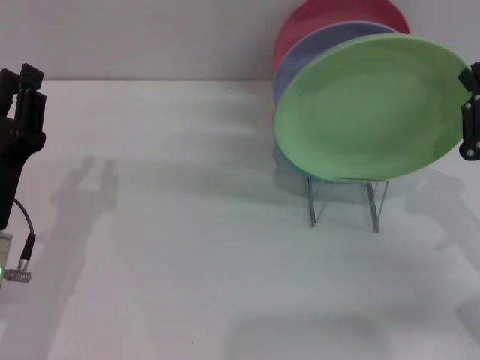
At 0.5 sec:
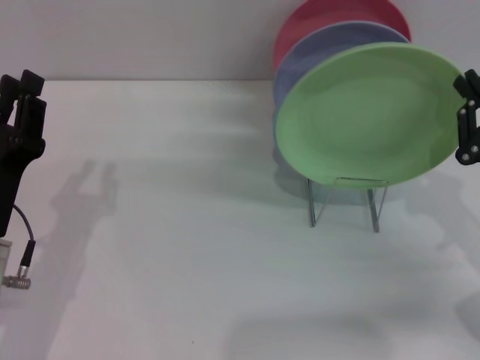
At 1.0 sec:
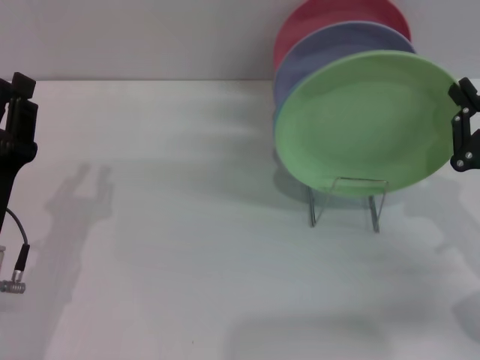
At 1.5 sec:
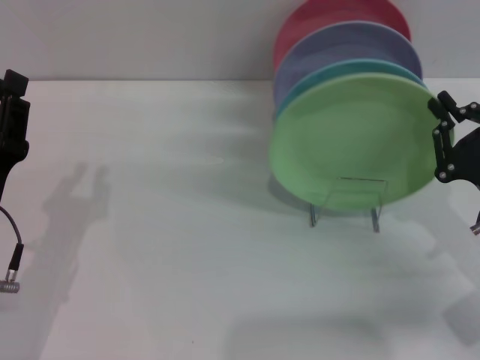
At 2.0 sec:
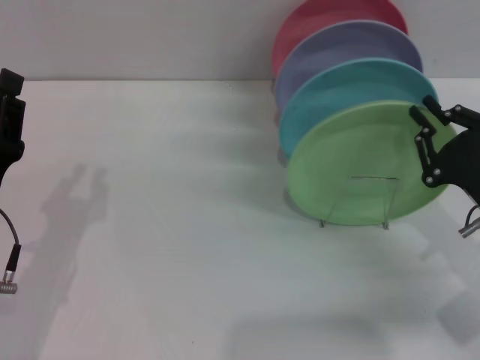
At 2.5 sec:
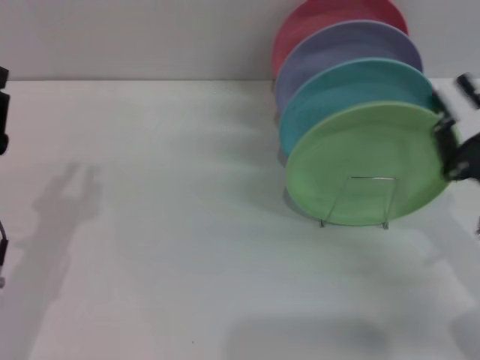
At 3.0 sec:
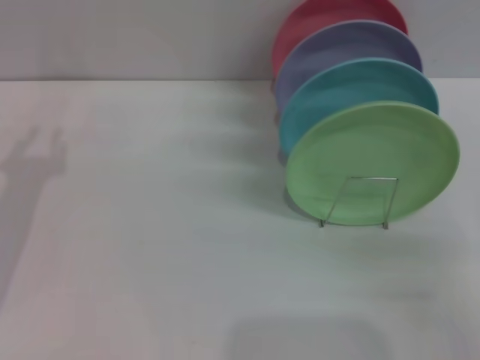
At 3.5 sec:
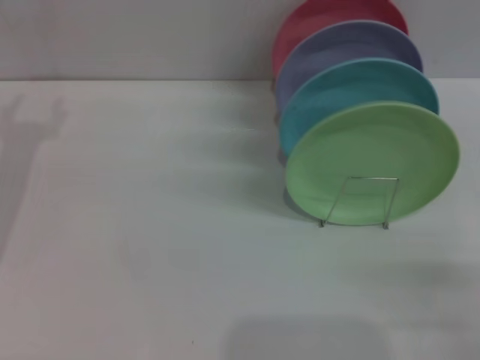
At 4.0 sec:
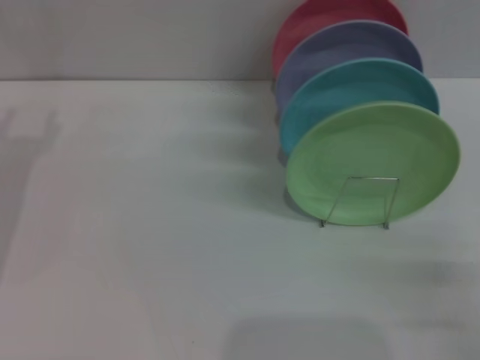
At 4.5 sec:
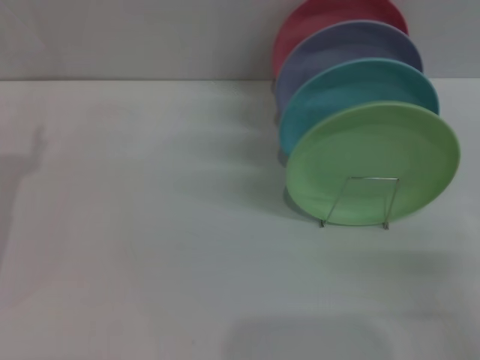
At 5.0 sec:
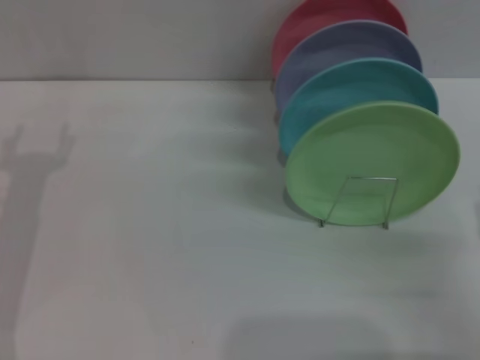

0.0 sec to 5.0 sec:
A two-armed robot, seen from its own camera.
Task of the whole recording: Grip the plate with one hand, pass it to the other, then set it on the shelf.
Step, 0.0 sec to 2.5 sec: Place the plate on the shelf with the right gripper.
0.0 sec to 2.5 sec: The grippers make only small movements.
2.5 sec to 5.0 sec: The left gripper heads forward, covering about 5 cm, and opens up, while the right gripper opens its fingers.
